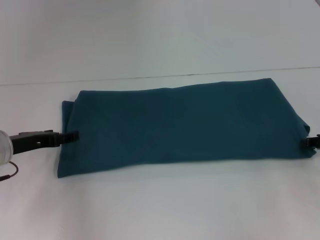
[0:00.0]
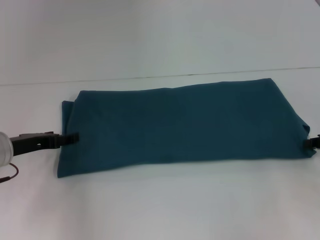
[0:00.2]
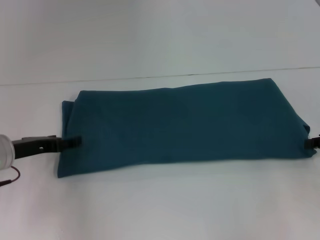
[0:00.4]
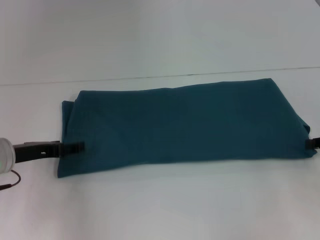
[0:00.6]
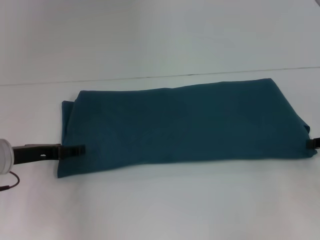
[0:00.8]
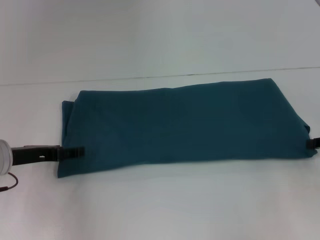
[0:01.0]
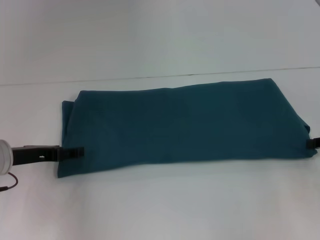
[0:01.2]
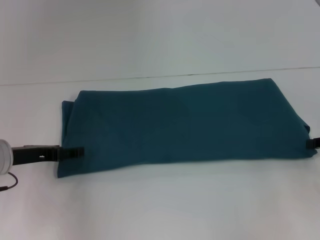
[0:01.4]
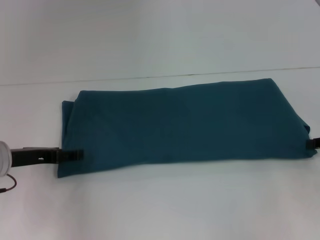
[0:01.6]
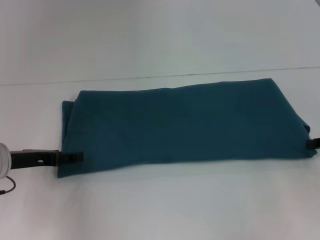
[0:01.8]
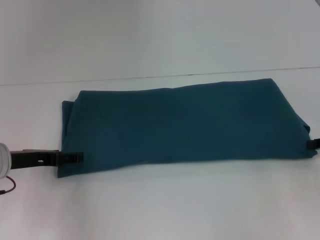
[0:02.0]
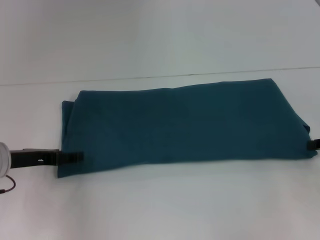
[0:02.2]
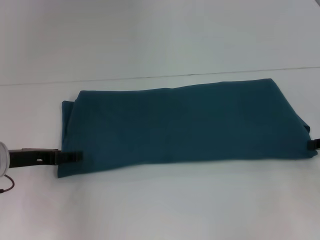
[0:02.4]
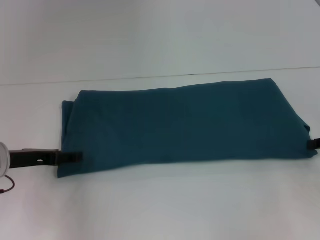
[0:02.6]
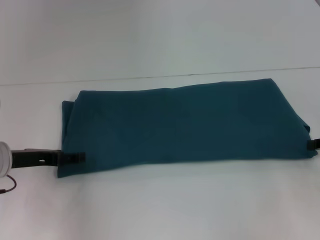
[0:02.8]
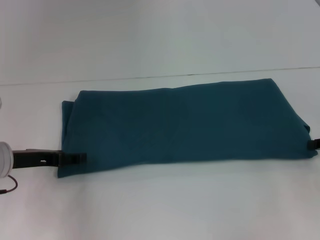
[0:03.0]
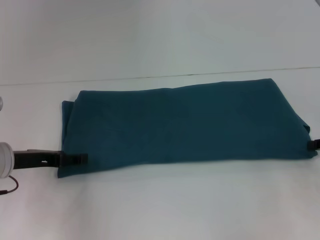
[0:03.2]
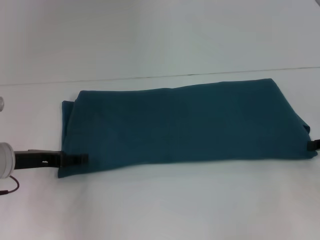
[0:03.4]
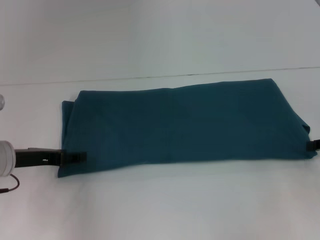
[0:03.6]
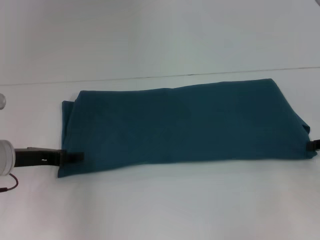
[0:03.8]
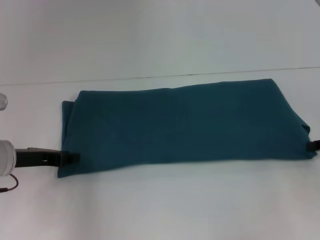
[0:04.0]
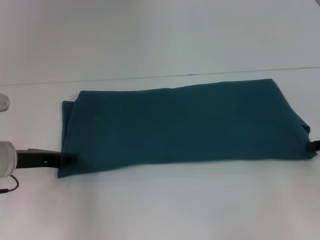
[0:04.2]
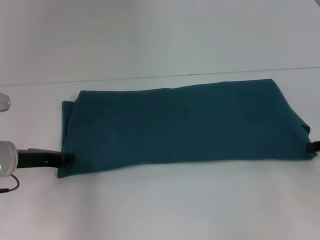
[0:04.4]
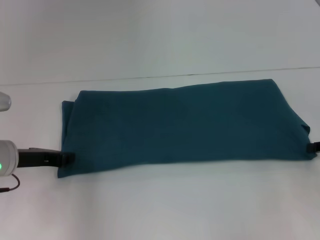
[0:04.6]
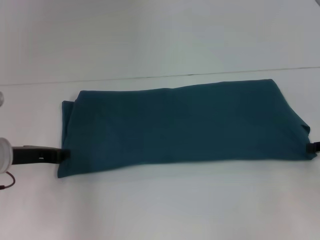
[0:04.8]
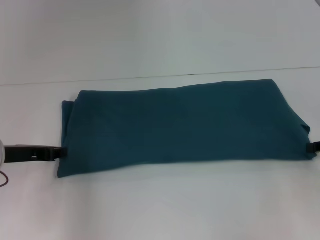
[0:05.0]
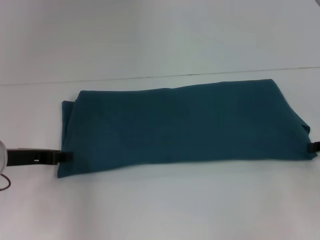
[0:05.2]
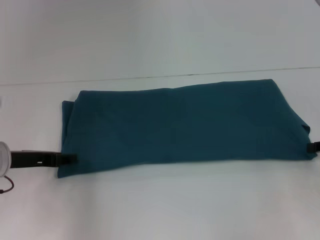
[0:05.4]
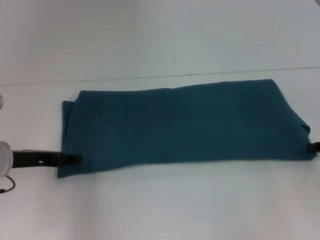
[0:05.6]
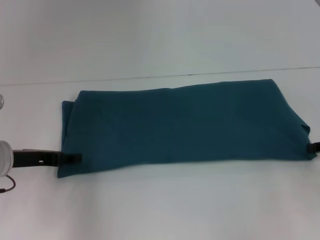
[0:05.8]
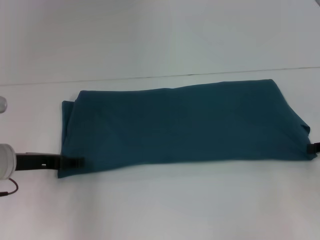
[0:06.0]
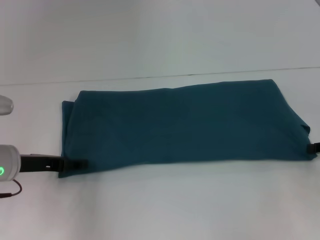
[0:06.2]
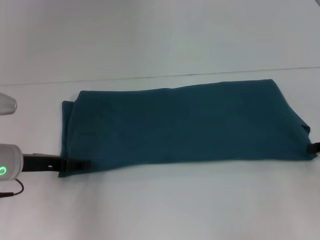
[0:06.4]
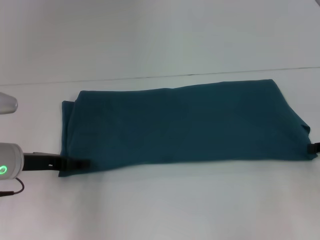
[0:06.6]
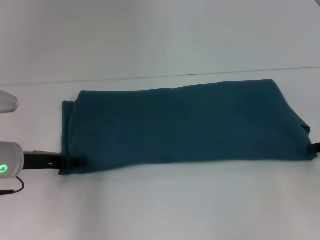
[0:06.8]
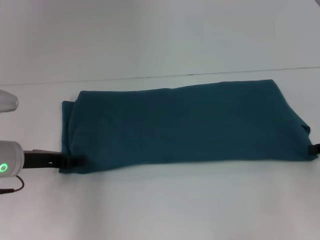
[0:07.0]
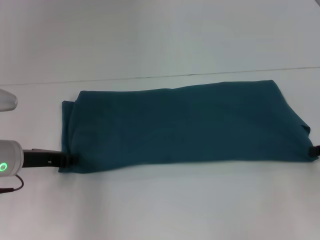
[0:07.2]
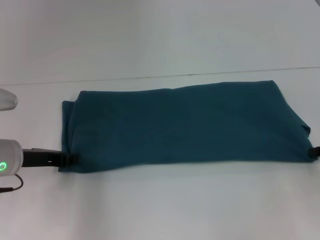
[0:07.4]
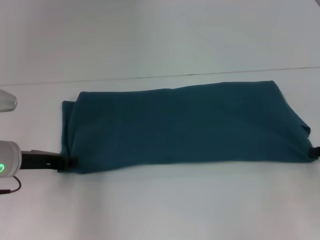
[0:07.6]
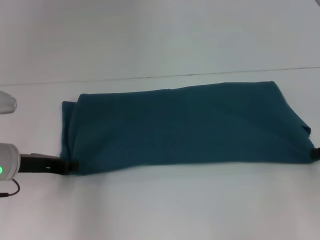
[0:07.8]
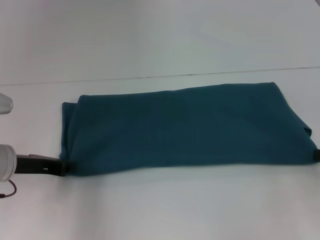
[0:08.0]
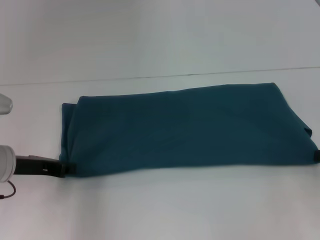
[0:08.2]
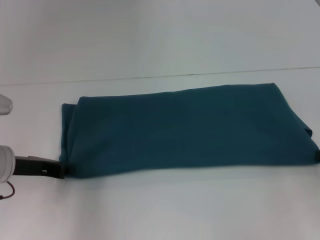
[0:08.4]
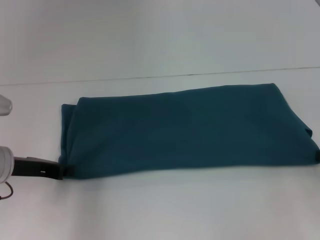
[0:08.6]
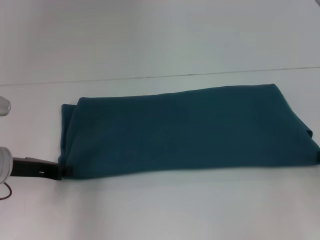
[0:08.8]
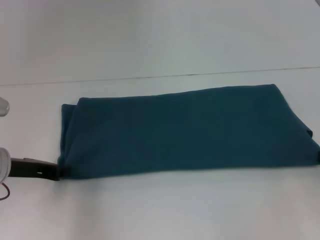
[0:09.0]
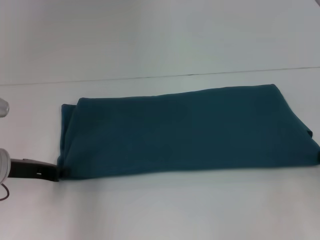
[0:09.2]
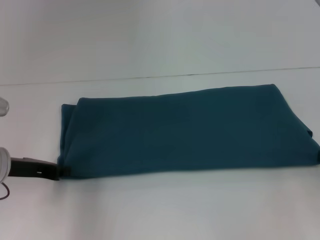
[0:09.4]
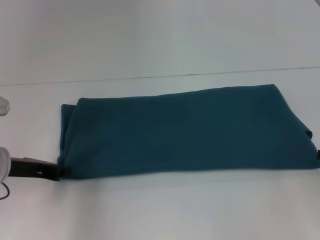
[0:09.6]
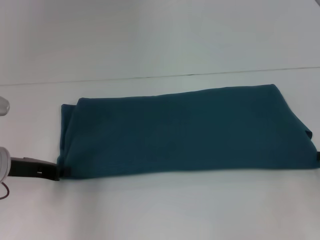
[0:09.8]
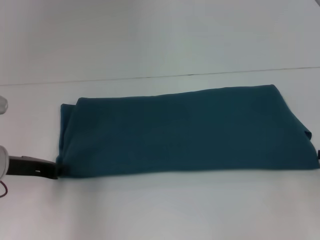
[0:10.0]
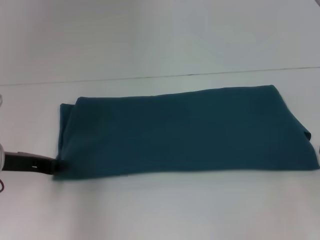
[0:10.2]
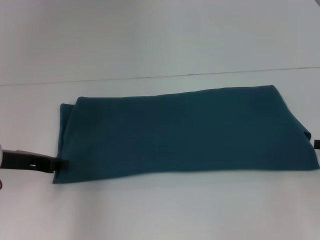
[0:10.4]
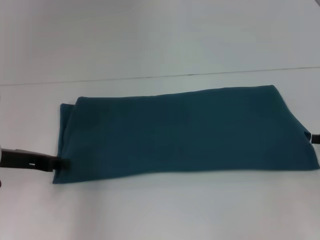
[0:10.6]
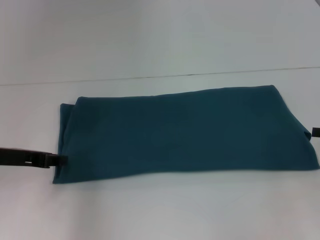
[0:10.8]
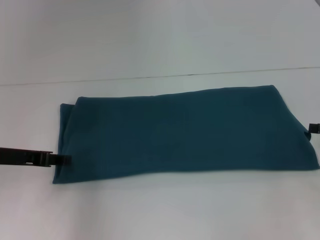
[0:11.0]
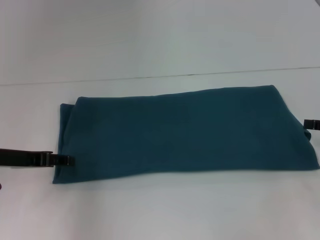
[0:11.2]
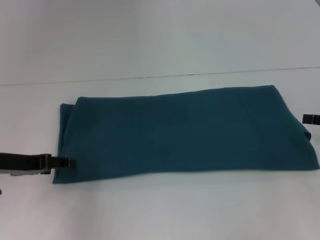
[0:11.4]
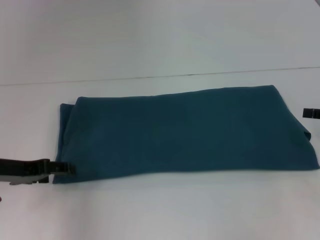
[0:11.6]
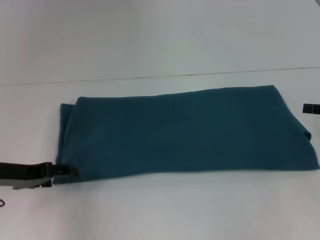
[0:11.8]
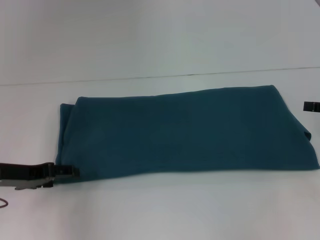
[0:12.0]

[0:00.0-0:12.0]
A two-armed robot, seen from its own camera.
0:01.6 to 0:03.0: Both grippers stay put.
0:03.0 to 0:04.4: The left gripper closes its fingers.
0:04.4 to 0:06.0: The left gripper opens its fingers.
0:06.0 to 0:07.6: The left gripper closes its fingers.
0:07.6 to 0:10.4: The grippers stay close to where they were, moving slightly.
0:10.4 to 0:12.0: The left gripper opens up.

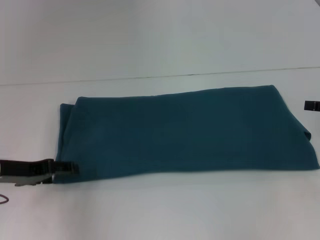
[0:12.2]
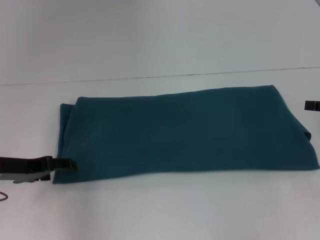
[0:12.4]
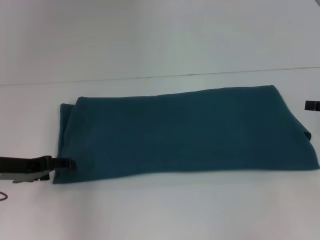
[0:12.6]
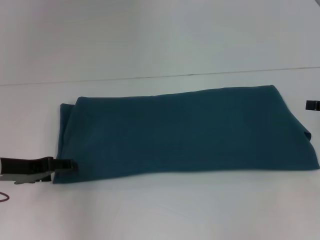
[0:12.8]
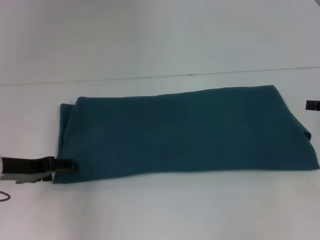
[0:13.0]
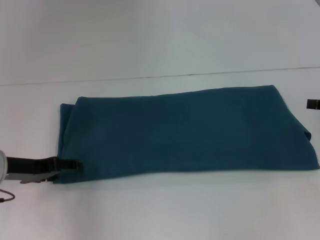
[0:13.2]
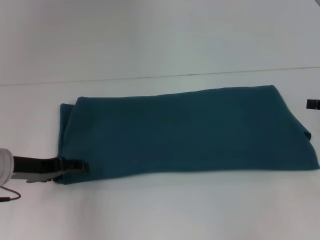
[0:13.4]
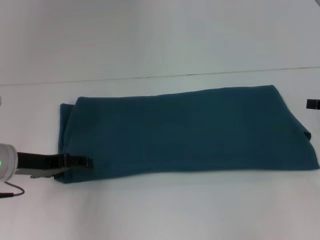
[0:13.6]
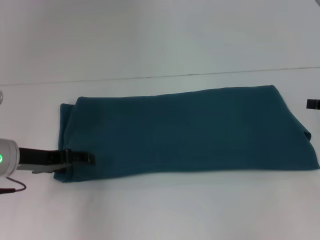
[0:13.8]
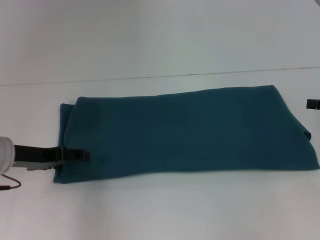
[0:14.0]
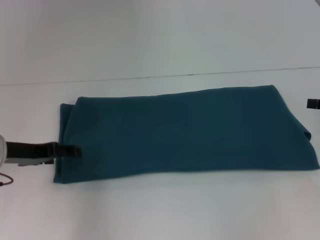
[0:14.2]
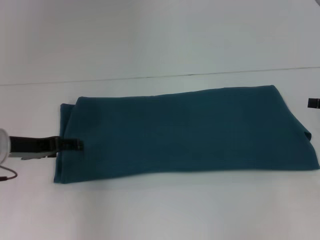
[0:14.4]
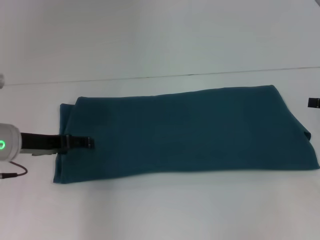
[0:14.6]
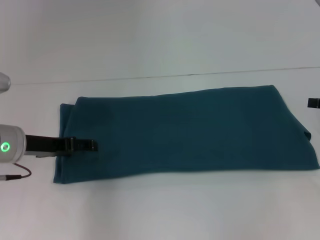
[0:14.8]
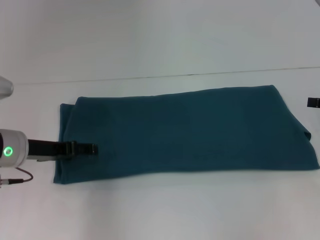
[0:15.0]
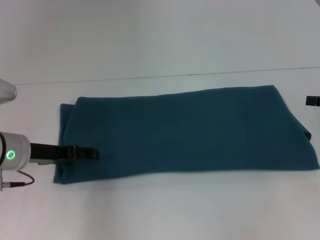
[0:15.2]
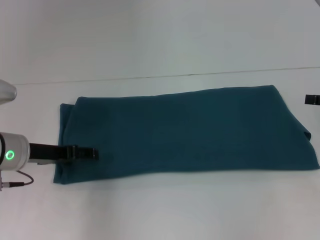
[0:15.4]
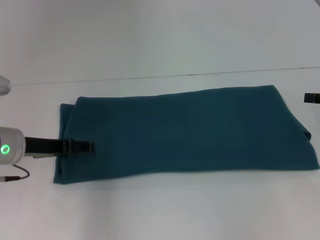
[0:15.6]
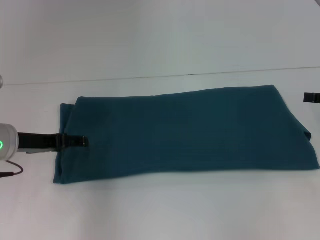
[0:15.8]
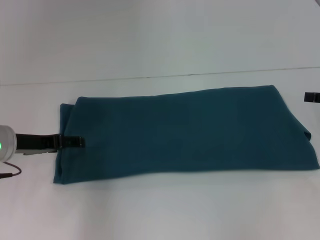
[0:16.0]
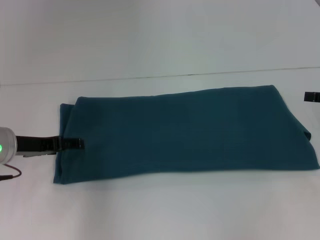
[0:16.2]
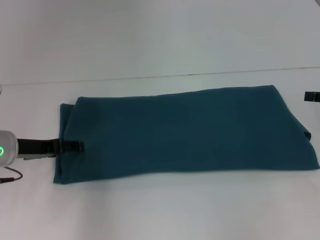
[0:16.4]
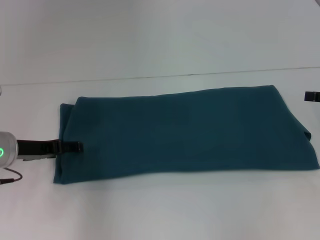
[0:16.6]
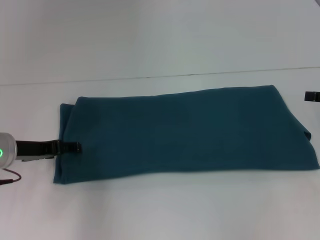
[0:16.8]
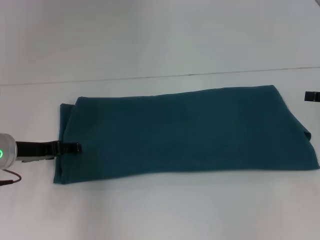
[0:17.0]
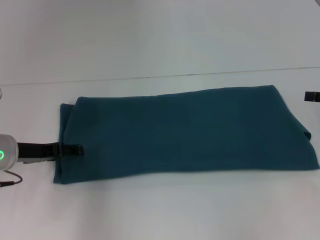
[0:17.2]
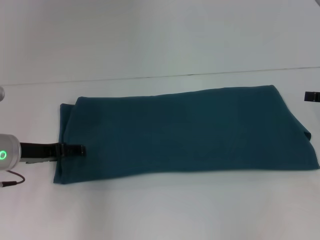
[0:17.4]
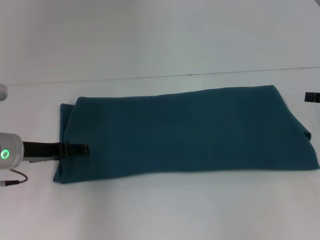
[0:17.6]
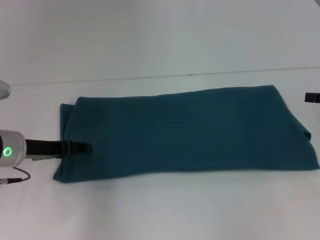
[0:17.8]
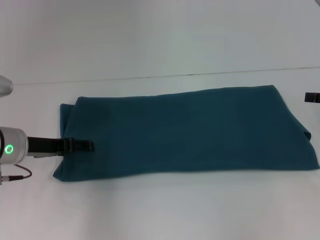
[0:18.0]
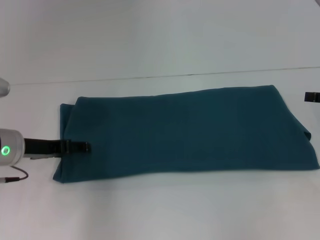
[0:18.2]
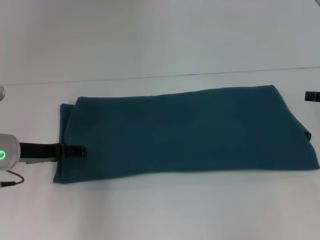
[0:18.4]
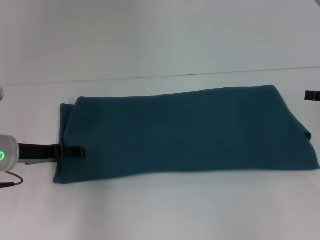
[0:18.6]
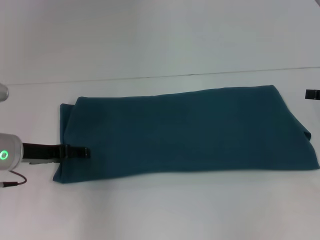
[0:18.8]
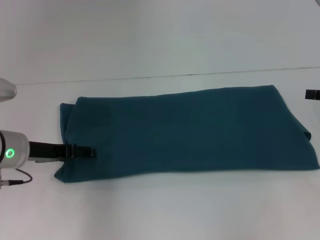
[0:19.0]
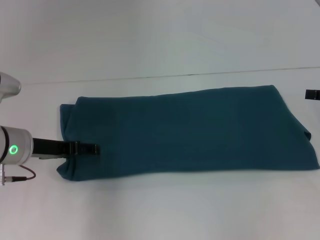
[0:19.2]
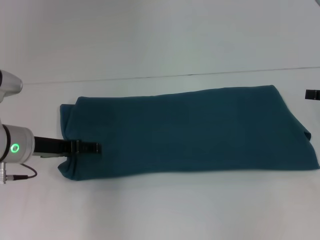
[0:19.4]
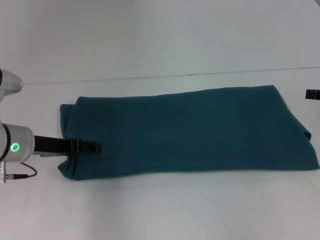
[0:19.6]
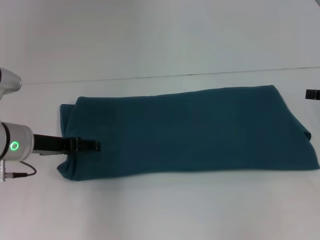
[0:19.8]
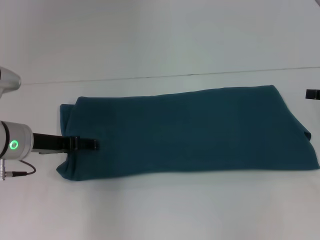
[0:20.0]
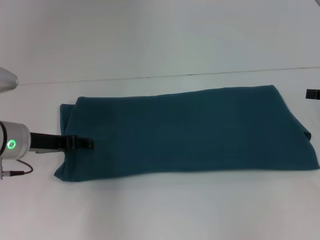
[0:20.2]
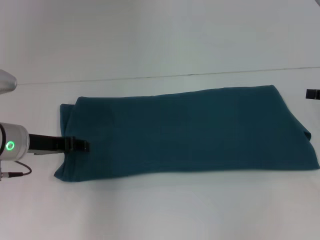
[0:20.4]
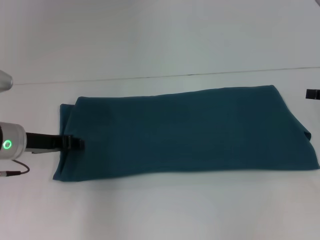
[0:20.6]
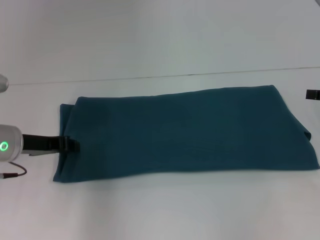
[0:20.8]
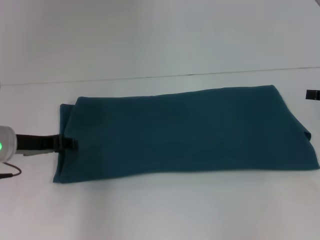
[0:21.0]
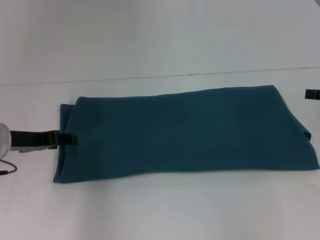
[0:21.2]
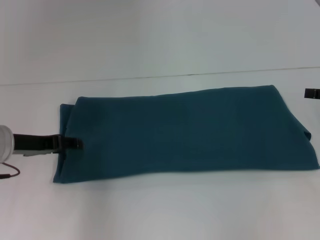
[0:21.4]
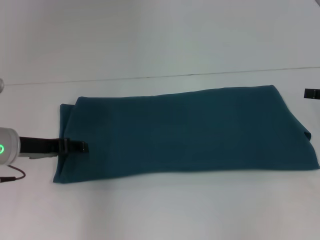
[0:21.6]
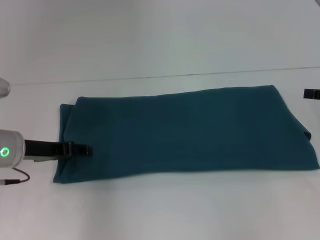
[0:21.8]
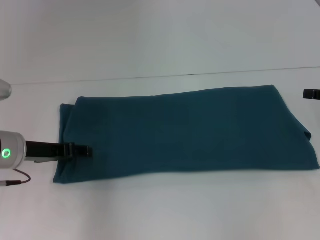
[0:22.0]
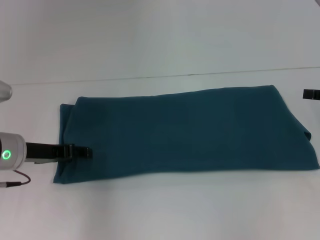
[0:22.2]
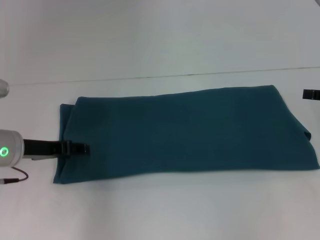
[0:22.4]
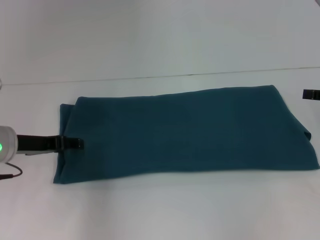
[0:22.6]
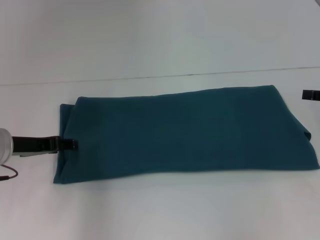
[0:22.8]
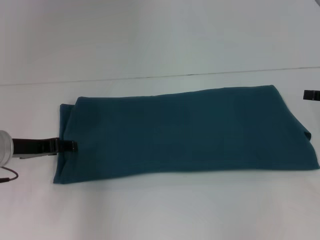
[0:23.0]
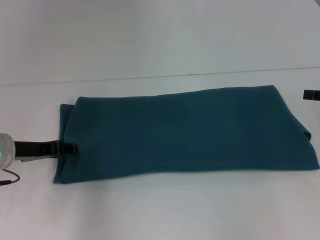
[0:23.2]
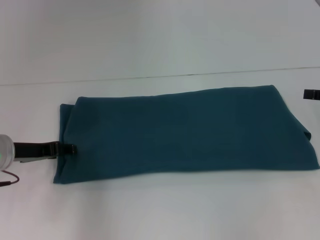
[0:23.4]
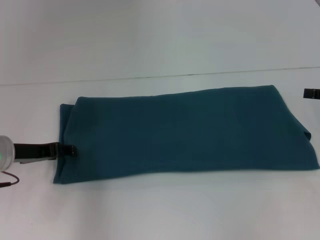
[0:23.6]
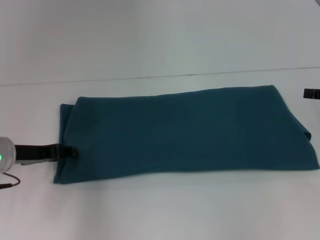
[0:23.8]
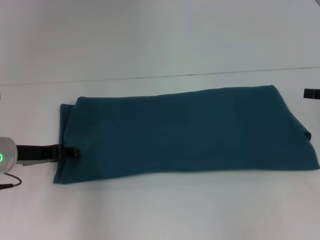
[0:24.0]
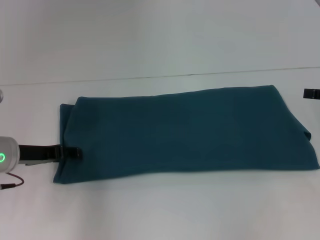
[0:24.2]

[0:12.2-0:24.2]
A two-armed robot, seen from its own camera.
0:12.2 to 0:19.8: The grippers make only small movements.
0:19.8 to 0:21.2: The left gripper closes its fingers.
0:21.2 to 0:24.2: The grippers stay close to where they were, moving slightly.
